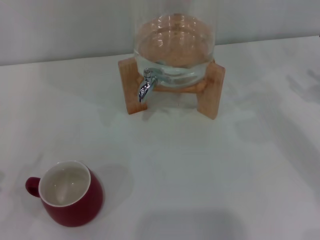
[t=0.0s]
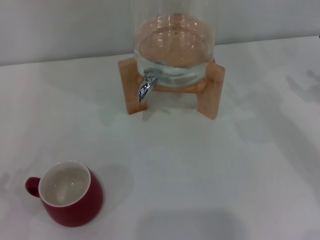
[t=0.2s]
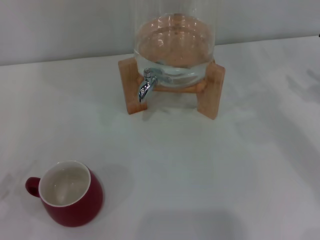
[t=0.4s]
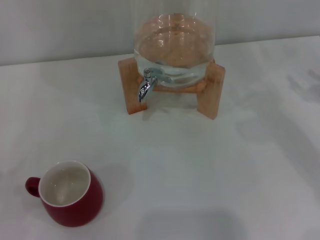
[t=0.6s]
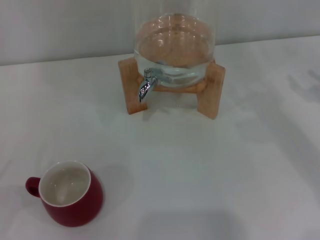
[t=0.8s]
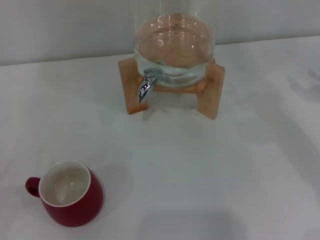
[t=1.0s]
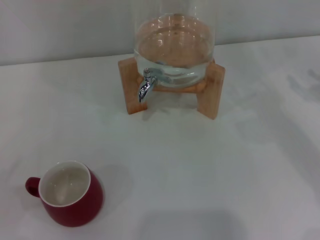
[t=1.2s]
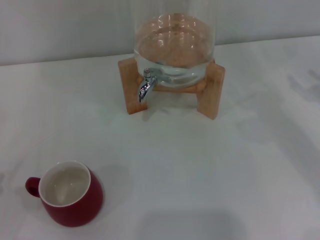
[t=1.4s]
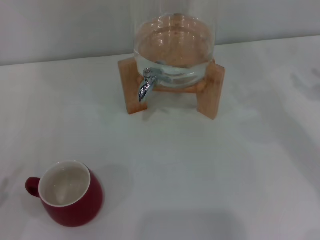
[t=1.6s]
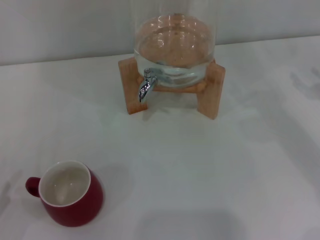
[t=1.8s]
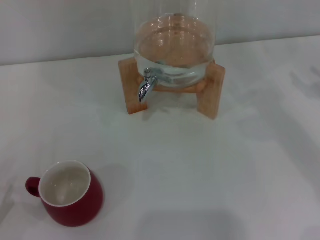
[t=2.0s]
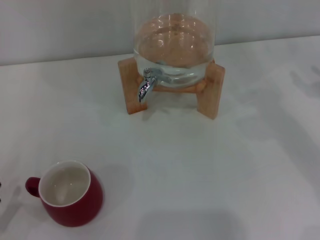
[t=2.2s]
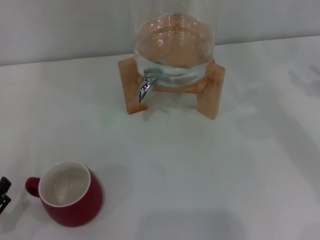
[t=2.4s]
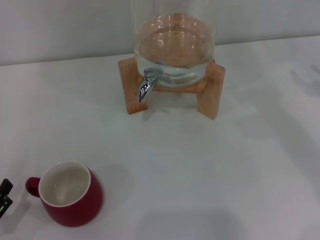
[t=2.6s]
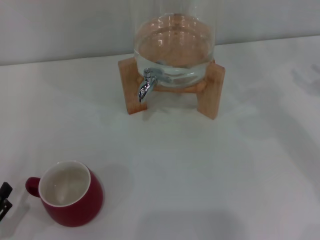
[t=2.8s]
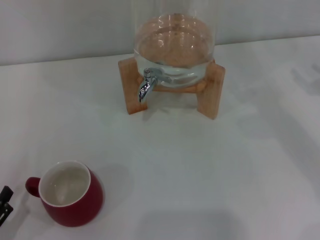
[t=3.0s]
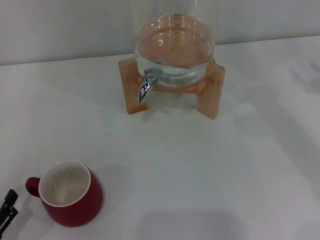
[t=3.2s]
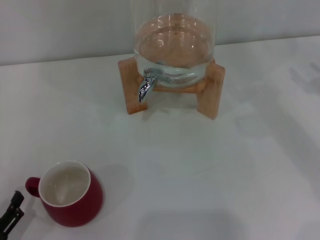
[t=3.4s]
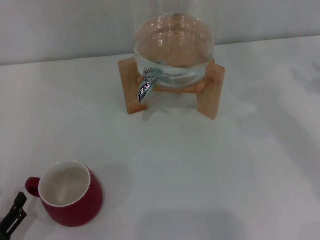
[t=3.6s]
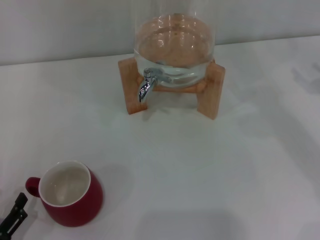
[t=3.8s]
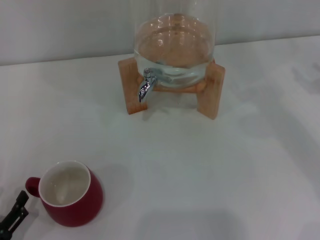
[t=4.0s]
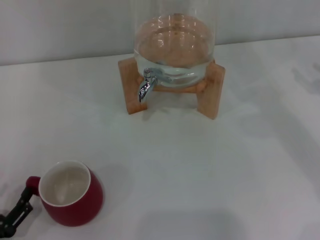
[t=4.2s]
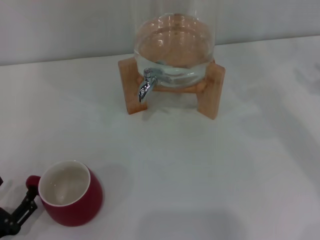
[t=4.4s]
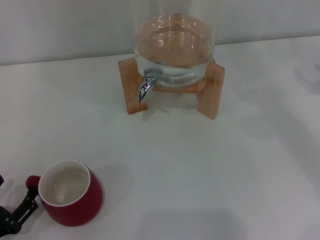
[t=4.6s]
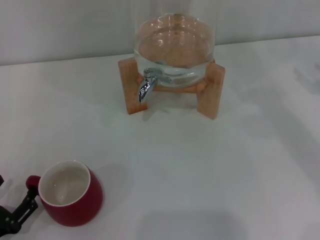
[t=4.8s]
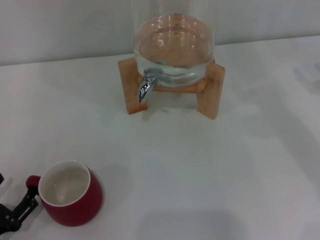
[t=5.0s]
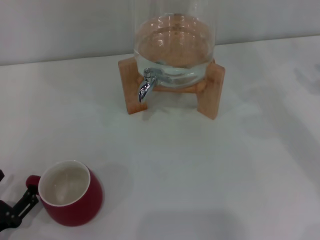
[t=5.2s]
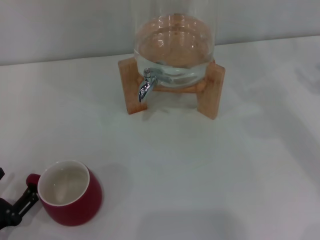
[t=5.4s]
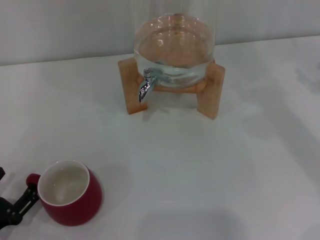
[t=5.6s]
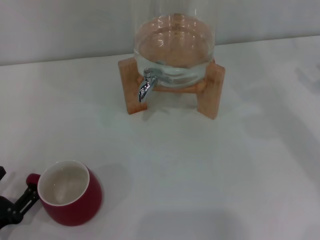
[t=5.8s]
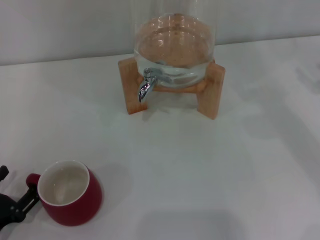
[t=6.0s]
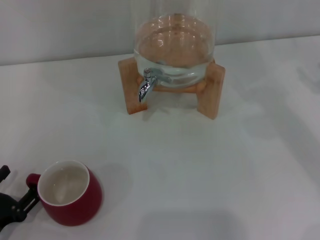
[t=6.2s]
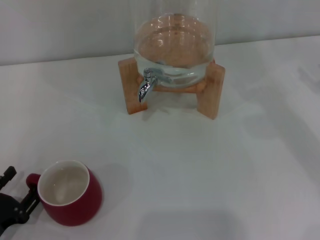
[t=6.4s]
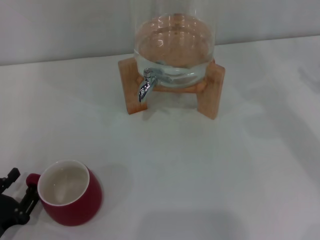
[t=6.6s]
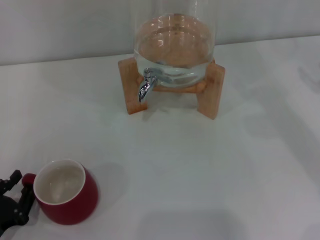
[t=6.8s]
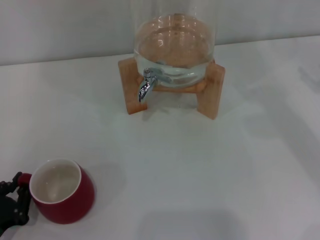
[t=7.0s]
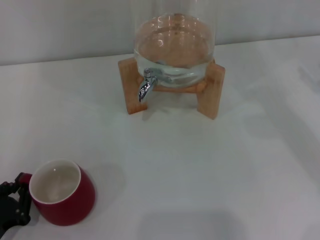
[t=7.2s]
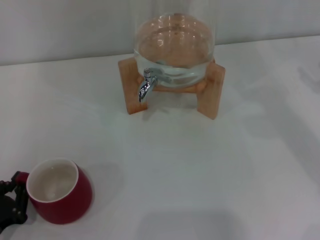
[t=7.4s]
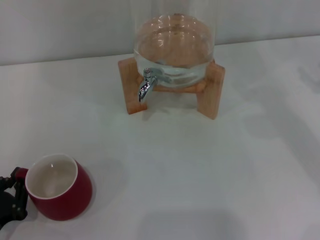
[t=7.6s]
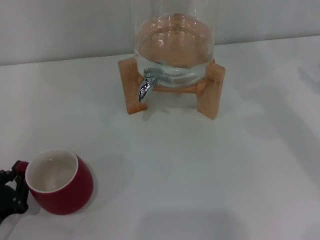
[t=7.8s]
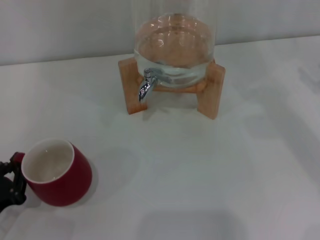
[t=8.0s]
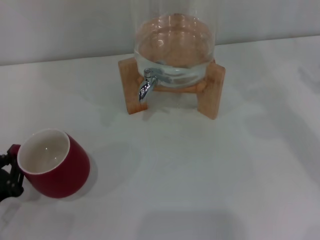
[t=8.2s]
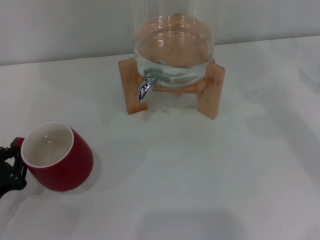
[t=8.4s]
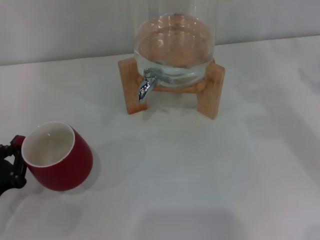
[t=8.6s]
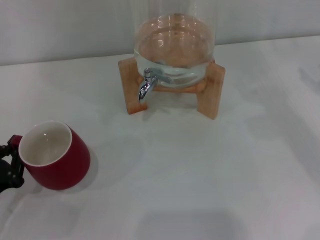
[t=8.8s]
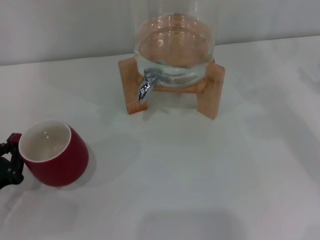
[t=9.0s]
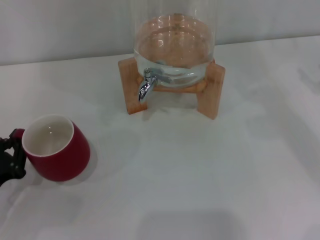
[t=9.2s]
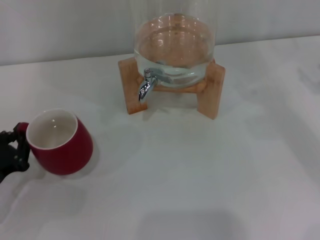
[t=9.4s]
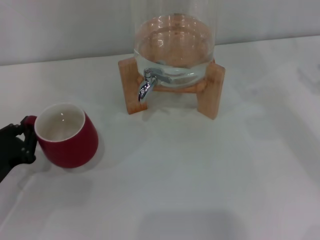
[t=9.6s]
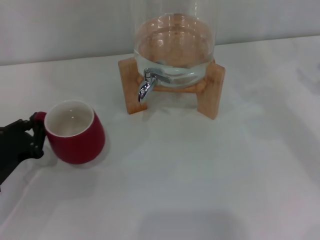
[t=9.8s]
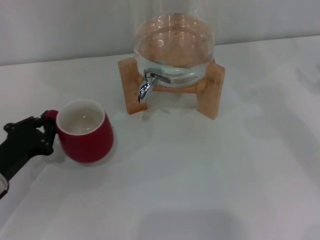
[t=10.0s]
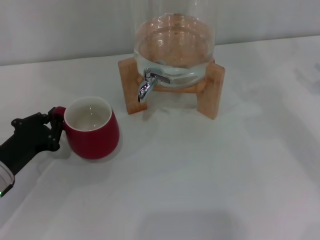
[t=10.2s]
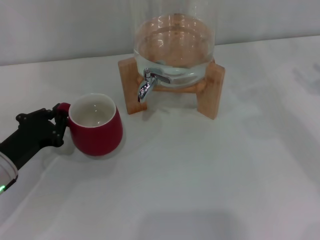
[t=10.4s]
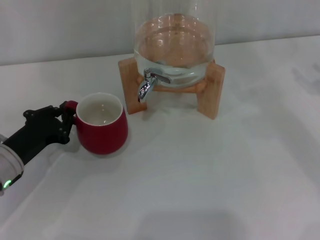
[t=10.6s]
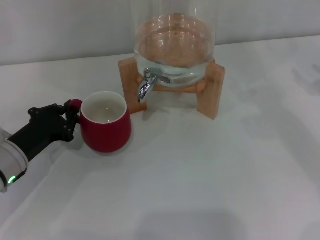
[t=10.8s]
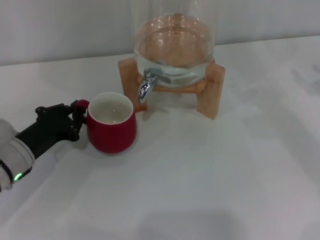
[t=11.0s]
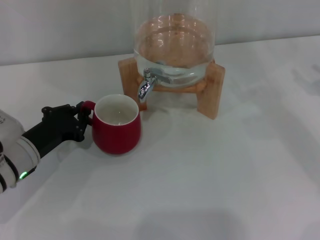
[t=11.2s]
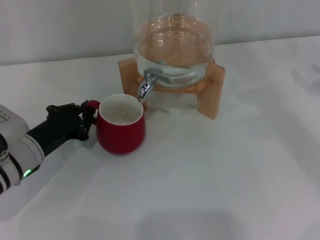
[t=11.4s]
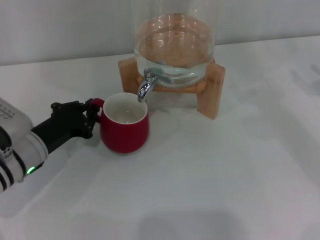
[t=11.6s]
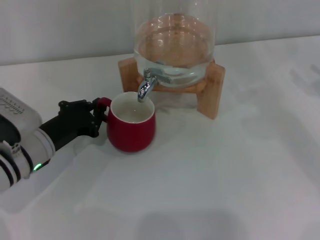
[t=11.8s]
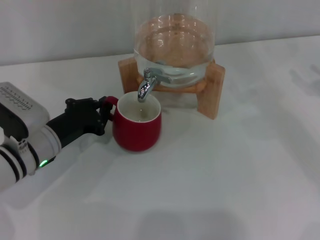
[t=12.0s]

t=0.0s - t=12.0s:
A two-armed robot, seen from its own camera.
Task of the whole recording: the left gripper pick up the red cup and place it horizontally under the faucet, the right gripper turn on the faucet to fill the cup, and then turn off the faucet.
t=1.6s - t=3.0s: The left gripper moves roughly 5 cm.
t=3.0s - t=6.0s: The grippers stay close to where they were, moving slightly.
t=6.0s - t=7.6s: The left gripper closes its fingers.
t=7.6s - t=9.0s: The left gripper changes place by roughly 5 cm.
t=9.0s - t=10.4s: The left gripper moves forward and to the right, roughly 10 cm.
t=10.4s - t=12.0s: The left gripper travels to the right by roughly 5 cm.

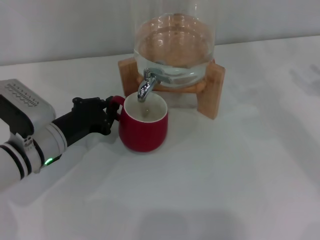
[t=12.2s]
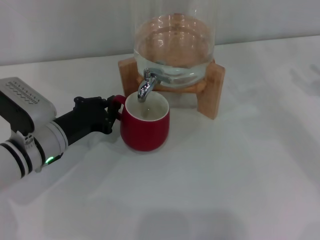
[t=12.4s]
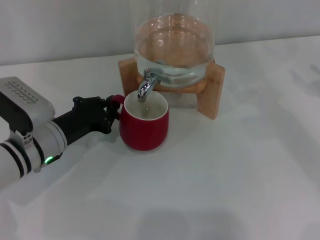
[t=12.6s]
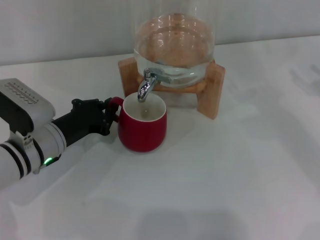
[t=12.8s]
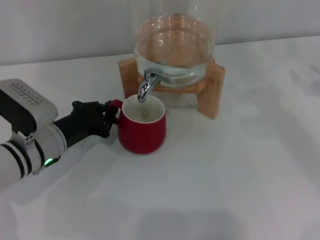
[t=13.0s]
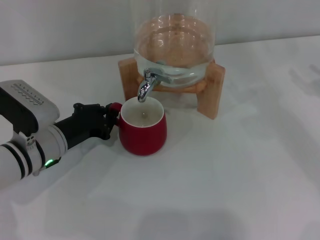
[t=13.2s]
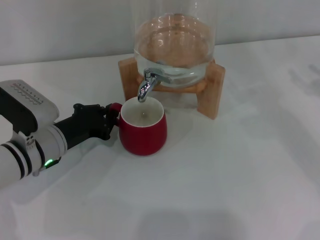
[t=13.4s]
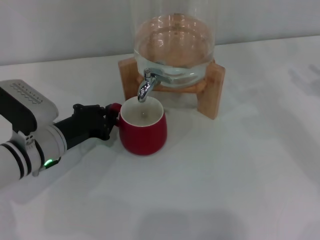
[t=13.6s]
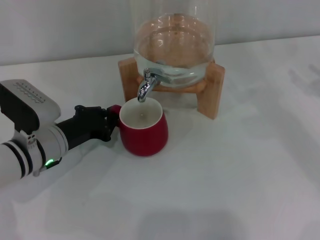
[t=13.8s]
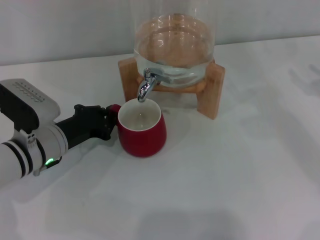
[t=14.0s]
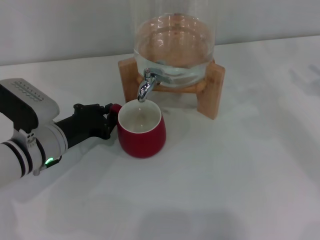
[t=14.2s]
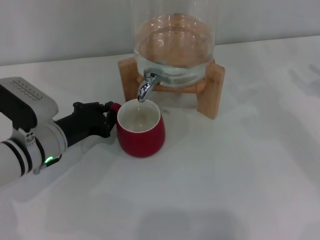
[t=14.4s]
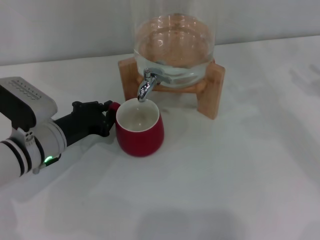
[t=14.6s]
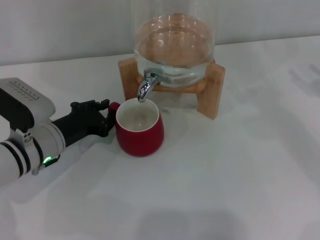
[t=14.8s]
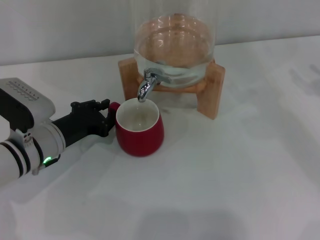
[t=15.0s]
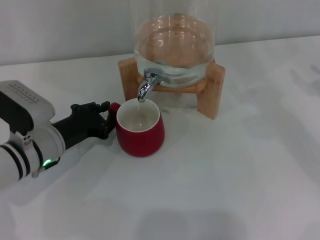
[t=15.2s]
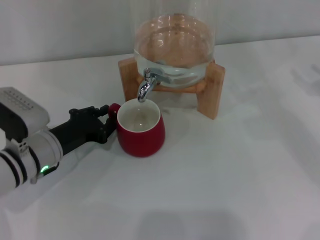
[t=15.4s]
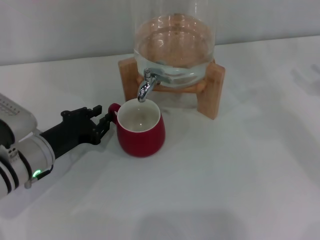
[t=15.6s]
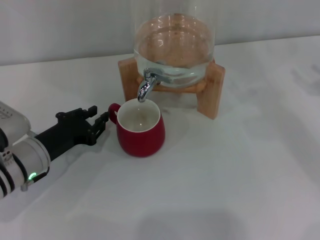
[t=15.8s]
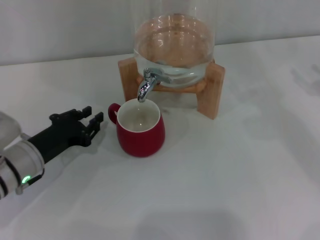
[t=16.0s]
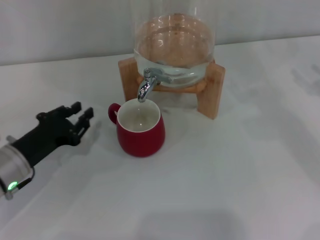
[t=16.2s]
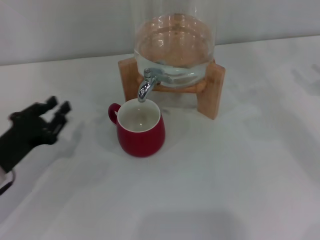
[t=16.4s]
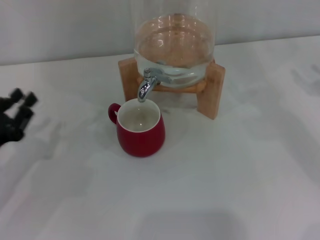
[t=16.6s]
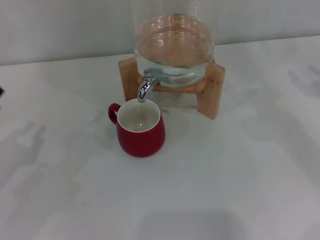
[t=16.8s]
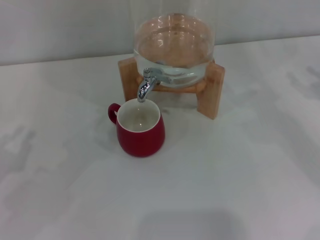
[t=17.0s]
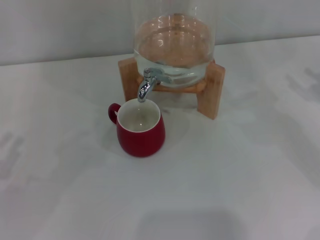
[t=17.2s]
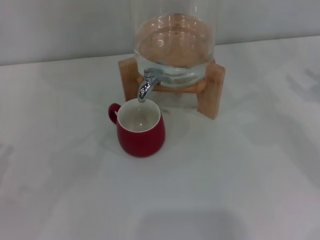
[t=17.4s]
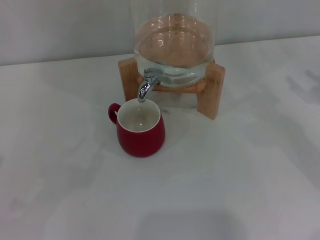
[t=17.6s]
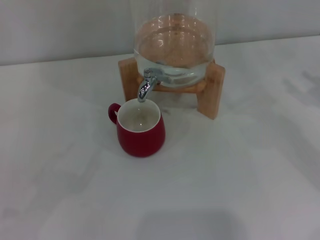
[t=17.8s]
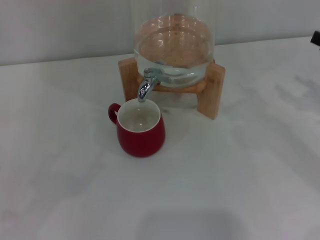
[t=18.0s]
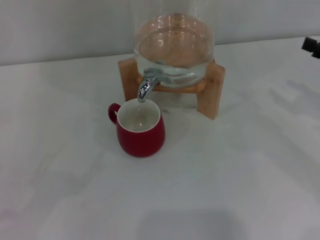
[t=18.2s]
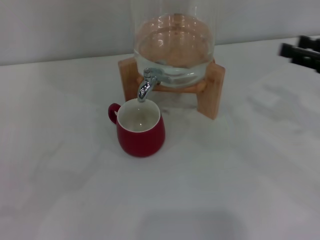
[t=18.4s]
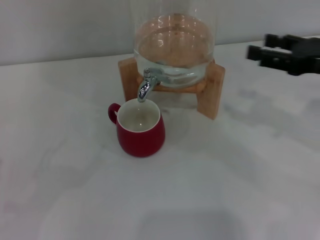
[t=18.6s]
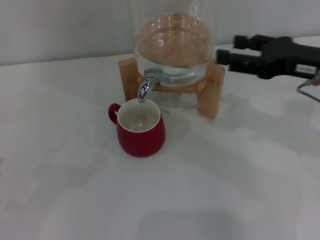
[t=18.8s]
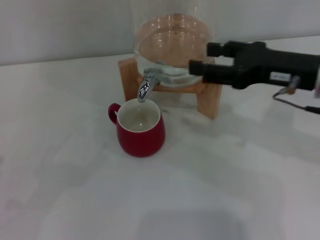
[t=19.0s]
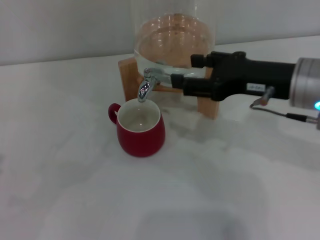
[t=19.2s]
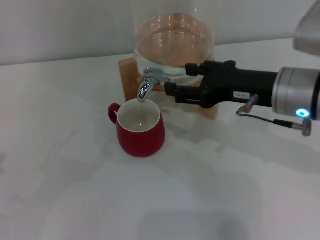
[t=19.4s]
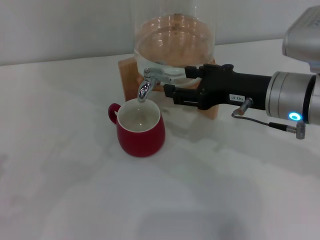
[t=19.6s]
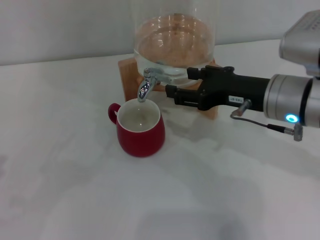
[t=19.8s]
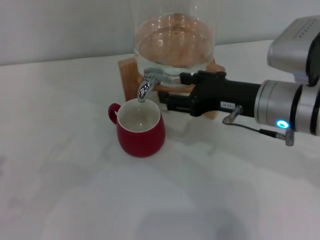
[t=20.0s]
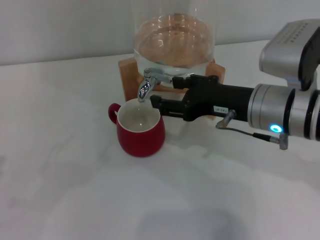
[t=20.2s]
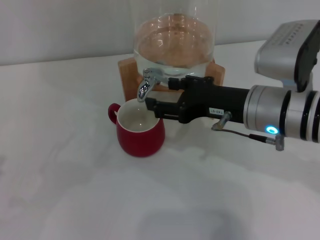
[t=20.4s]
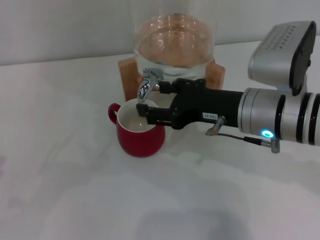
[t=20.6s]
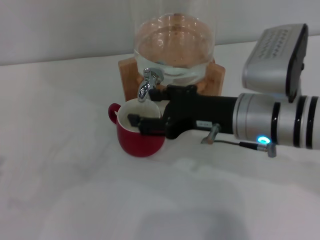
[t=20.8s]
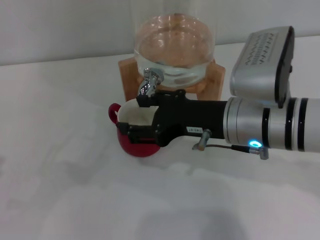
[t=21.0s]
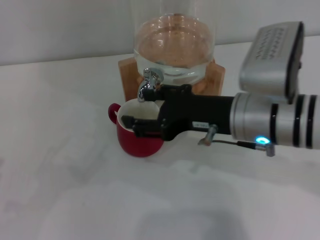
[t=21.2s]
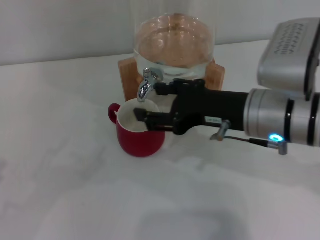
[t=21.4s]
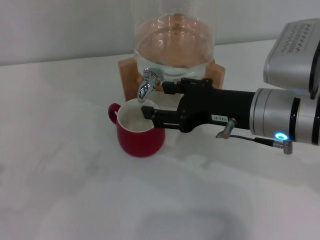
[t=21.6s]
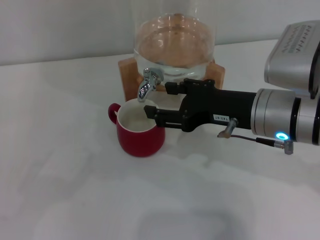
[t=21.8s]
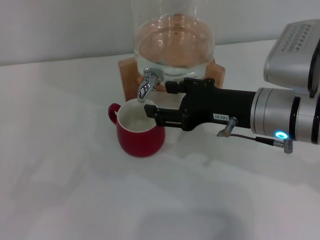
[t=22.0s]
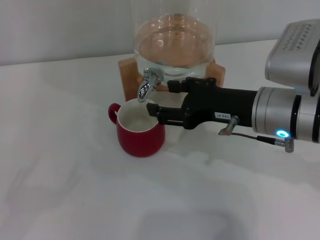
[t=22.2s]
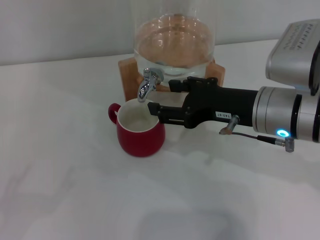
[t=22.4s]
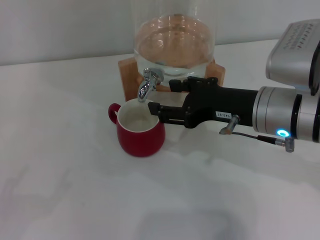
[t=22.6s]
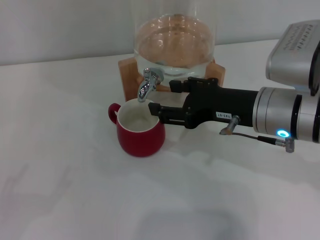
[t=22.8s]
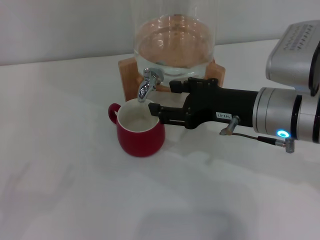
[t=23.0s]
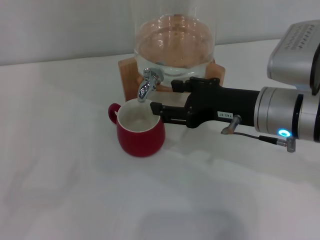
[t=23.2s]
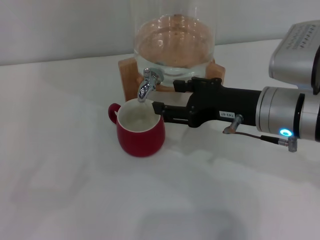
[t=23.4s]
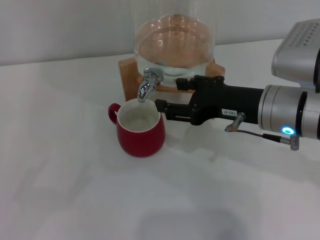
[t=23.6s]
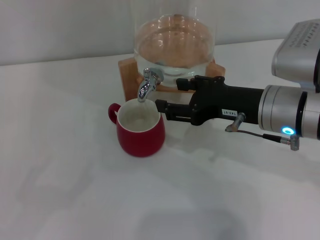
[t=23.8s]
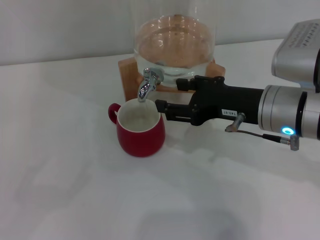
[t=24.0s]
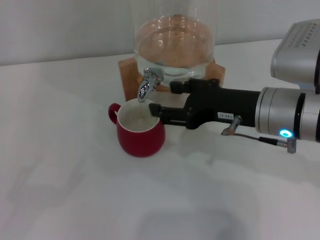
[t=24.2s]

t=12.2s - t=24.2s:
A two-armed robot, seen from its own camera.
Task of the whole recording: the left gripper pick up the red cup and place it horizontally under the faucet, the right gripper turn on the faucet to fill the cup, and then turn off the faucet.
Step, t=12.2s - t=16.0s: Move the cup beneath the water dispenser nozzle with the left gripper.
t=12.2s - t=13.8s: The grippers make only small movements.
t=13.8s - t=15.2s: The two grippers keep their place.
t=15.2s - t=16.6s: The left gripper travels to the left and backward by some 15 cm.
t=16.6s - t=18.2s: The left gripper moves backward and to the left, roughly 15 cm, and opens.
t=18.2s - t=19.8s: The right gripper travels to the left by some 20 cm.
t=19.8s - t=21.2s: The right gripper moves about 5 cm.
t=21.2s - t=22.6s: The left gripper shifts by approximately 5 cm.
t=22.6s - t=24.2s: The grippers stay close to where they were, moving slightly.
